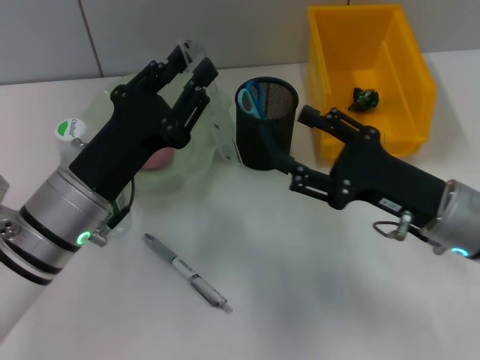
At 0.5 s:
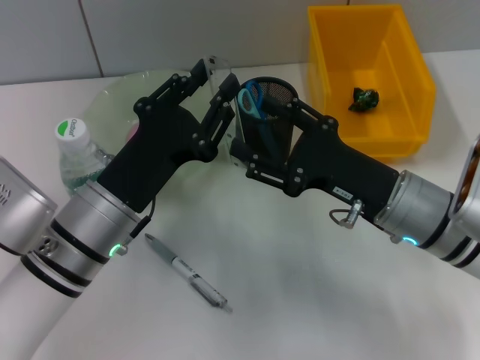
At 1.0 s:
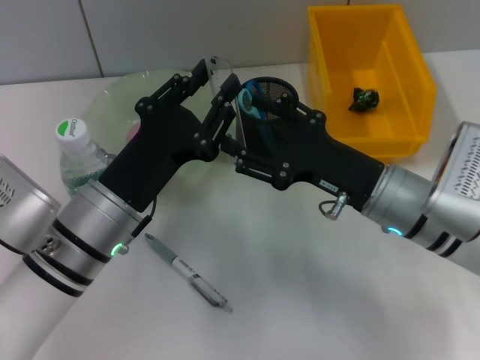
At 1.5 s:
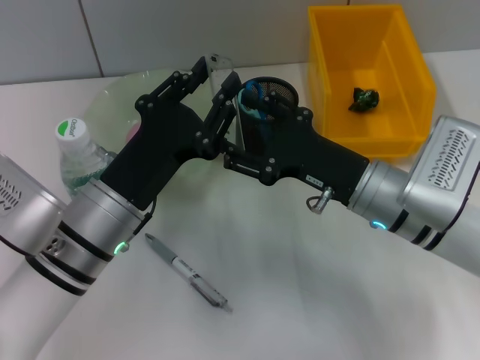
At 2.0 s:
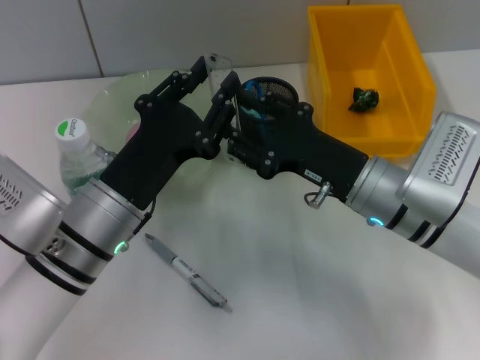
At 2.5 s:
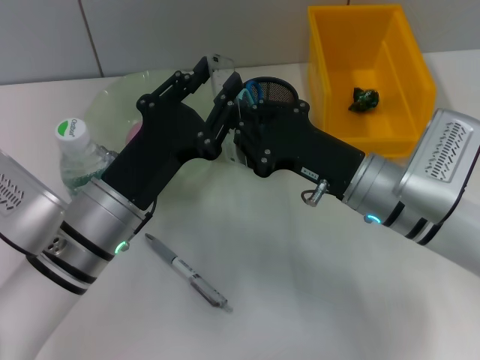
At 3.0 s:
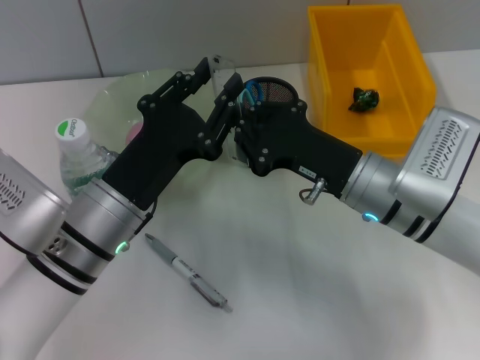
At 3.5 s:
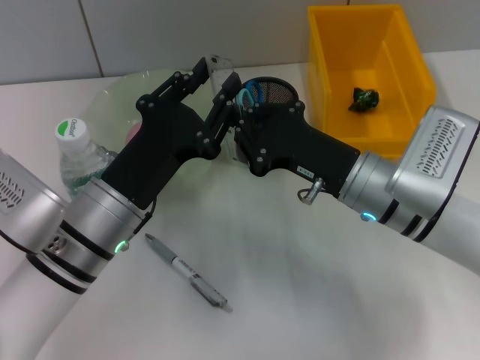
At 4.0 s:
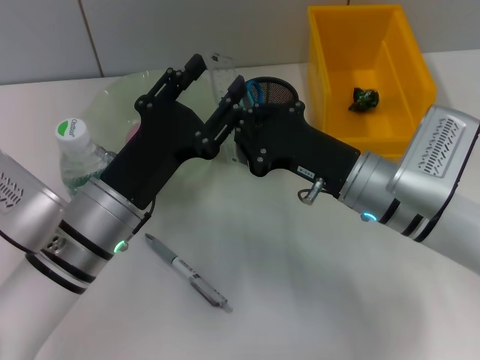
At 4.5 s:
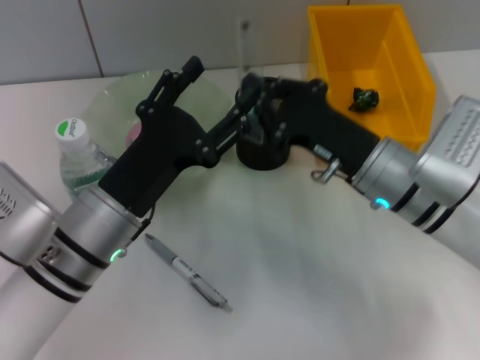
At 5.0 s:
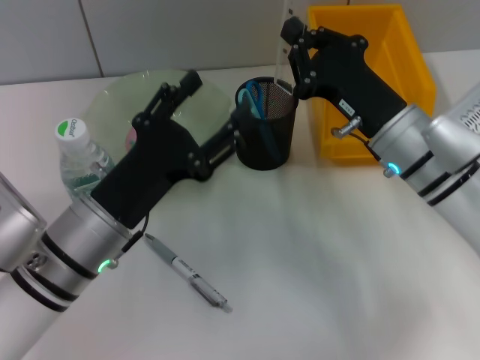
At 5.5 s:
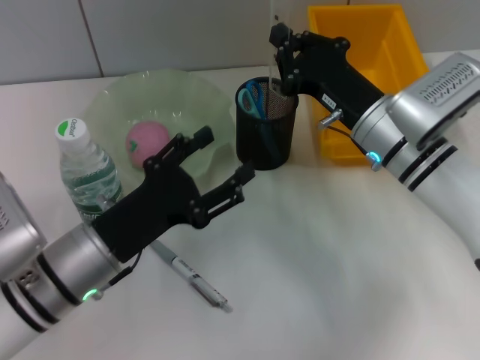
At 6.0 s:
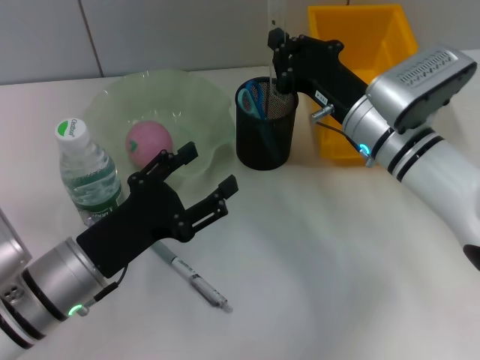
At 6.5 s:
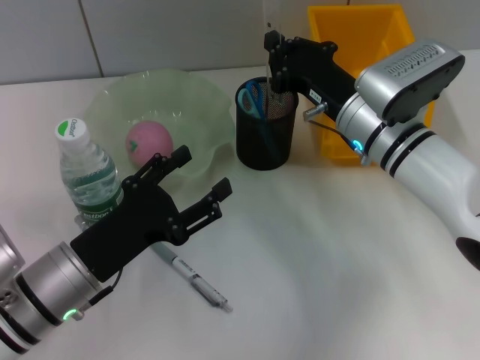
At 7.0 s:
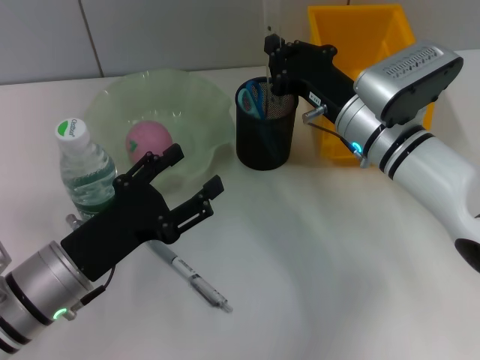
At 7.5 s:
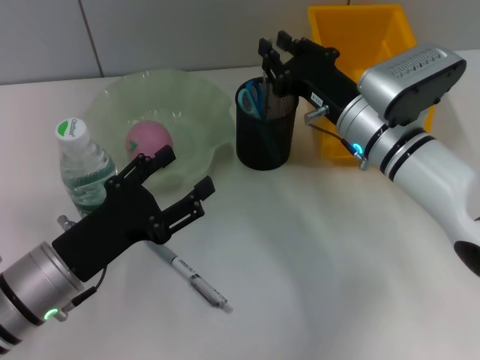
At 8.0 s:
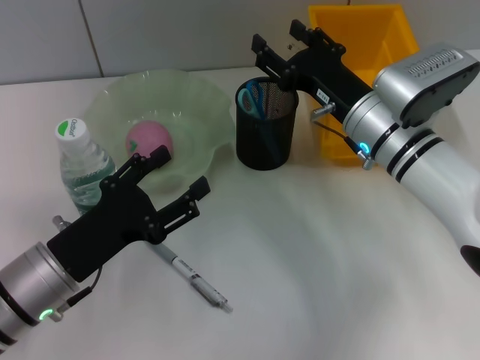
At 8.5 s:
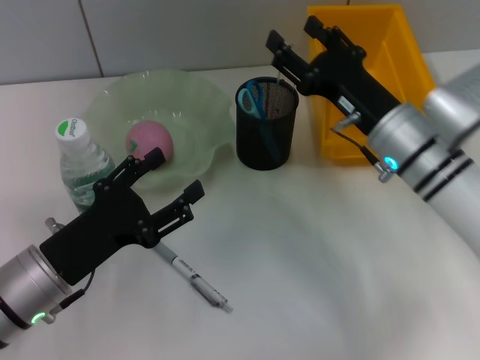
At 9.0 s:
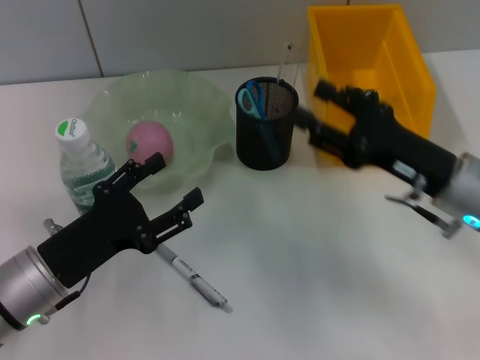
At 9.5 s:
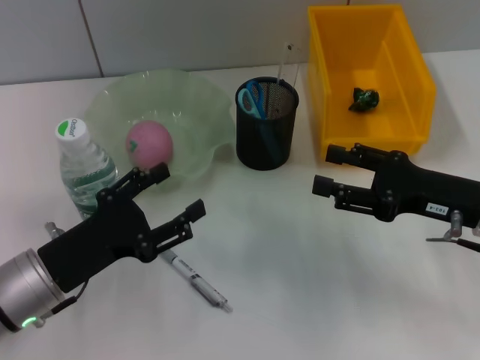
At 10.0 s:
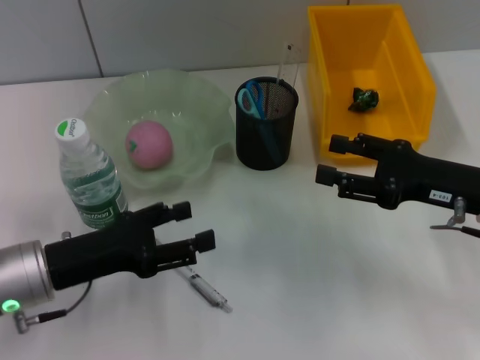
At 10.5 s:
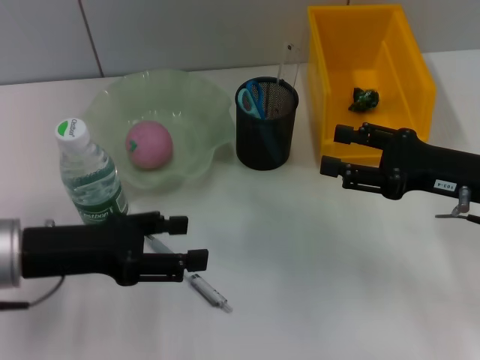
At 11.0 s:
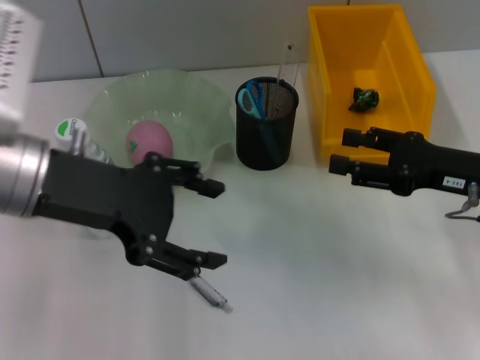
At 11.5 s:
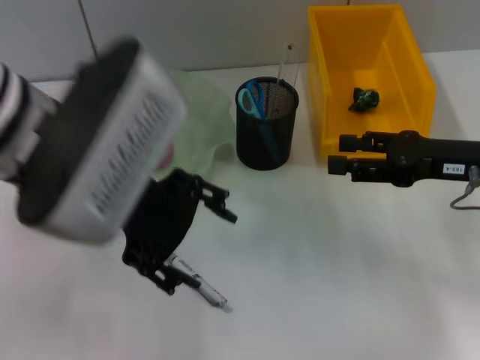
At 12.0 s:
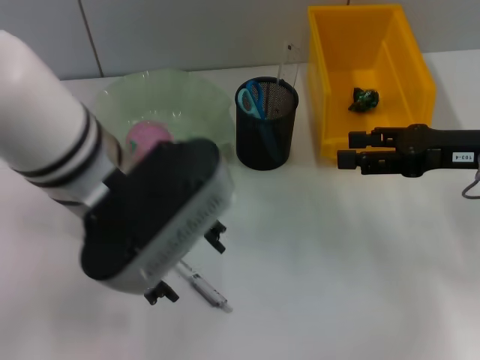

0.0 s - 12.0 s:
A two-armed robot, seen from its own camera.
Step, 0.0 s - 3.5 s: Pass the ruler from the left hand to the right hand.
Step, 4.0 s - 7.5 s: Place the ruler into the pen holder with the right hand.
0.0 s - 2.0 s: The right gripper is displaced to the left by approximately 5 cm.
2.0 s - 4.0 s: The right gripper closes up.
4.0 s - 6.0 s: The right gripper heads forward, covering some 5 cm, while the left gripper ends up some 5 cm from where it was, and opens.
6.0 s - 8.0 s: The right gripper opens.
8.0 s - 10.0 s: The right gripper shifts approximately 15 cm to the right and backward.
10.0 s - 12.0 s: The right gripper ends up roughly 5 cm from where it was; the left gripper goes some 20 cm upward and to the right.

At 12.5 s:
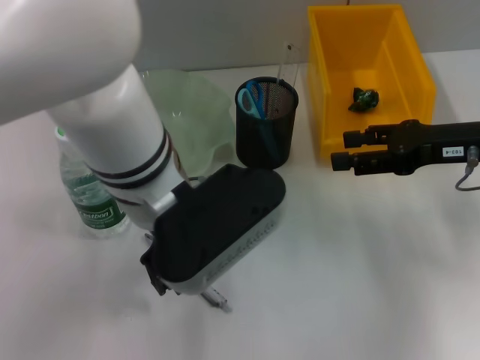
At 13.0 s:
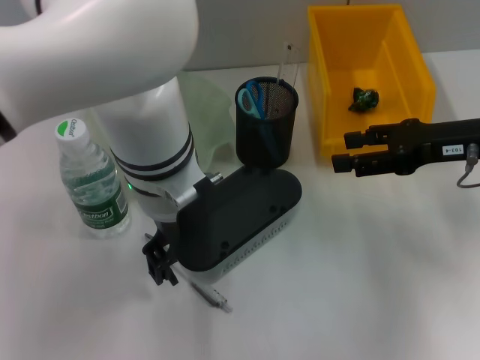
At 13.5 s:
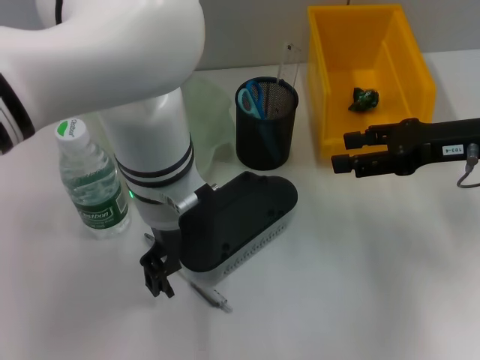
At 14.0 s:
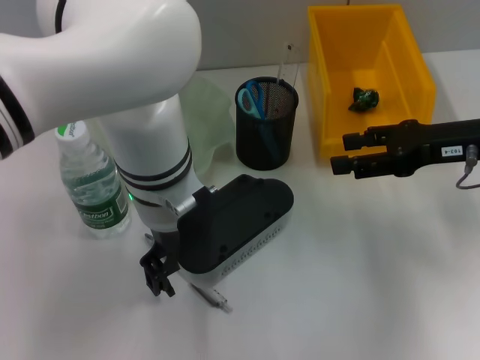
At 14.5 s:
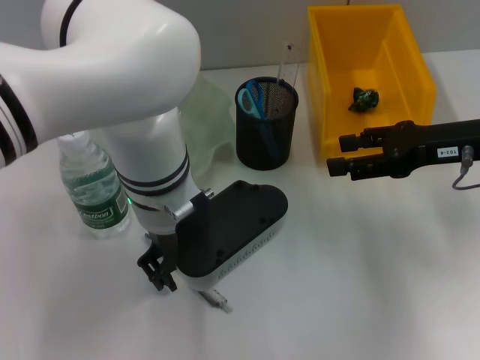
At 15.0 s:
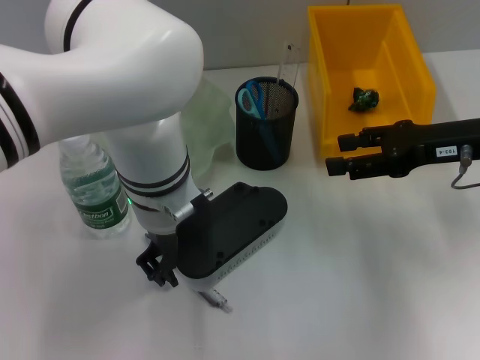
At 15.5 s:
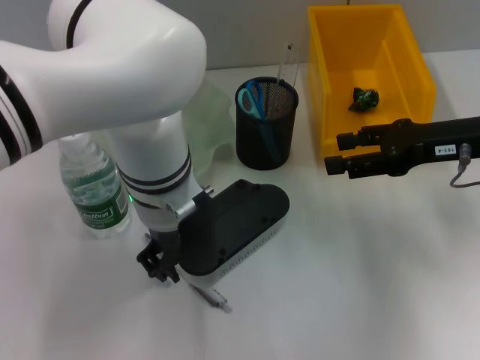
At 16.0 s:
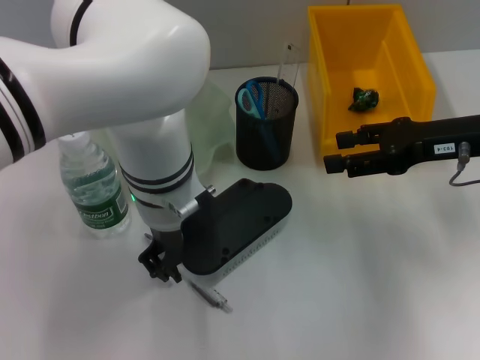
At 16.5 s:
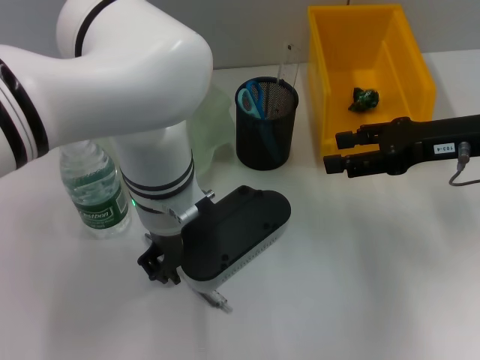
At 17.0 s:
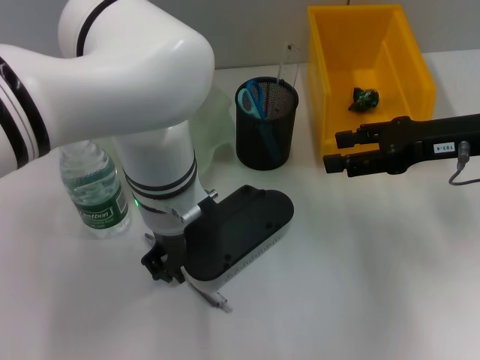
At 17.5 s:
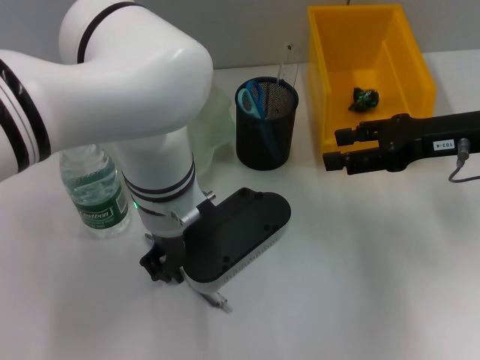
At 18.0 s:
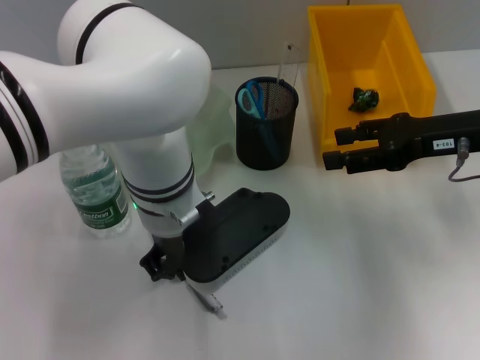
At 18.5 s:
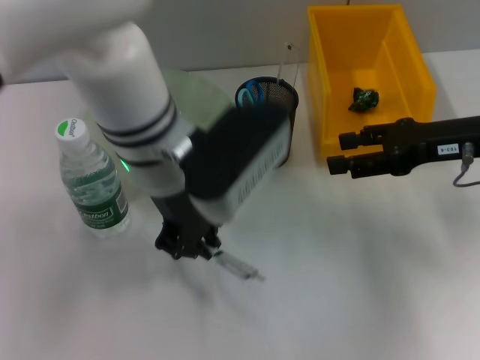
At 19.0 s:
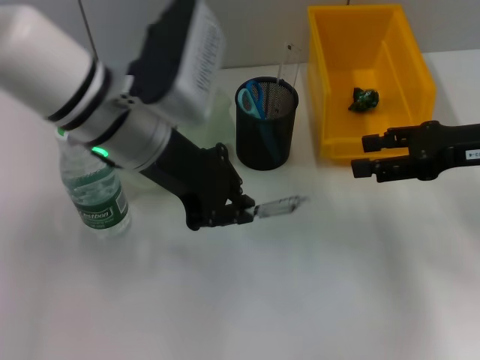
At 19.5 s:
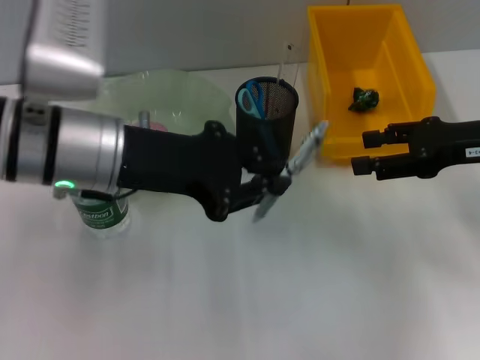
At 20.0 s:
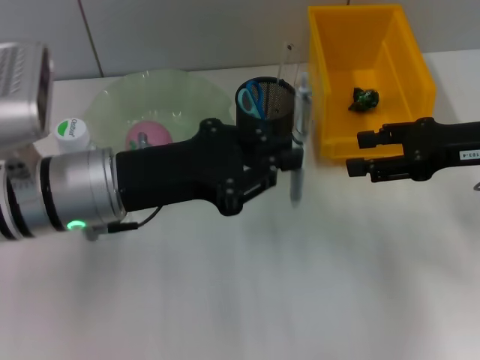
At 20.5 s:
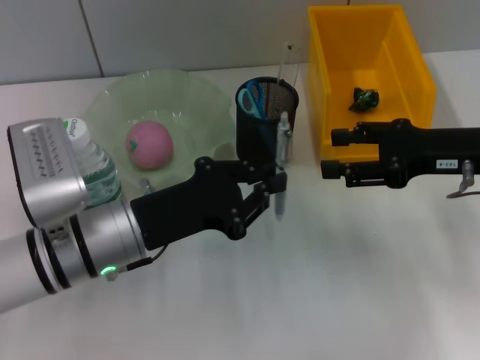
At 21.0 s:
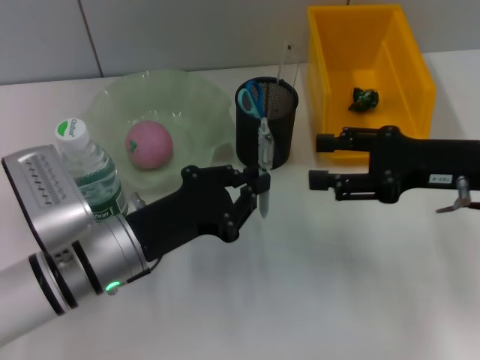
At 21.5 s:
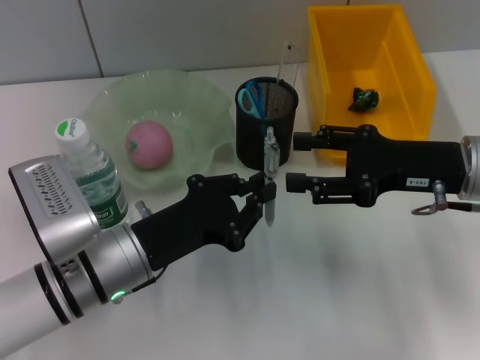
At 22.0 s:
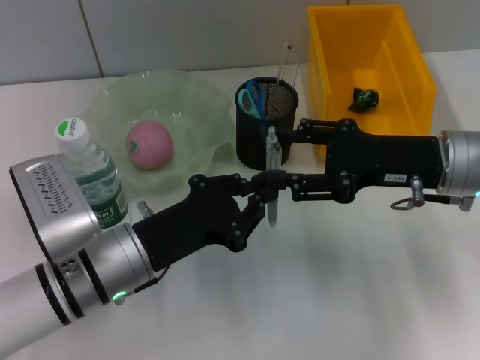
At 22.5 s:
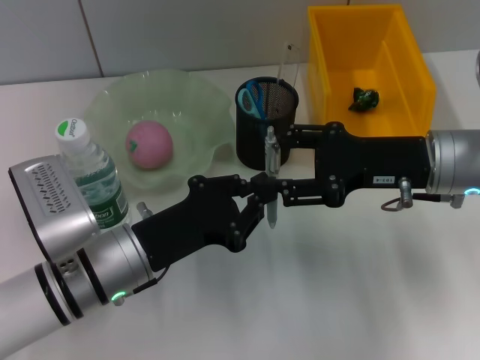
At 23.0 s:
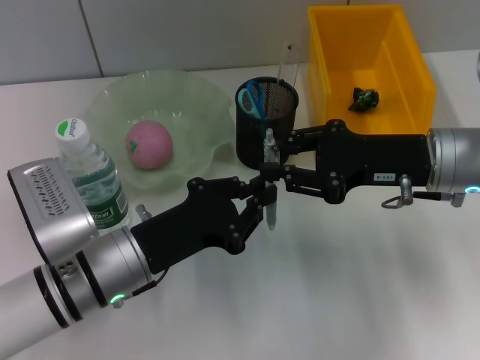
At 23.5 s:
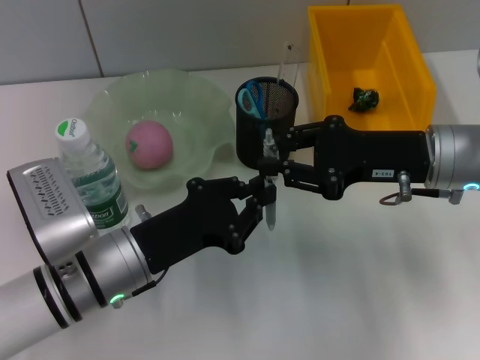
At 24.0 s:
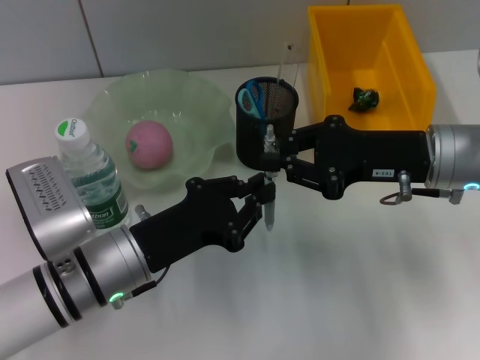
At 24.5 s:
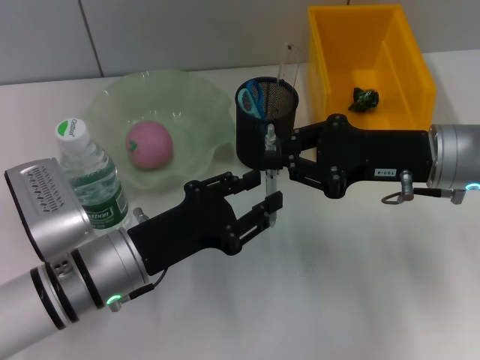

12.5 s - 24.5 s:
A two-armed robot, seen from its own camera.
Step, 12.5 s - 17.5 s: Grab the gray spring-action pen with the left hand.
14.5 s - 16.5 s: The two grippers keep their place.
18.5 s - 20.5 s: The left gripper goes about 15 cm downward, to the left and backward.
20.5 s - 22.5 s: The right gripper heads to the left, covering approximately 5 cm.
22.5 s - 24.5 s: The right gripper closes up.

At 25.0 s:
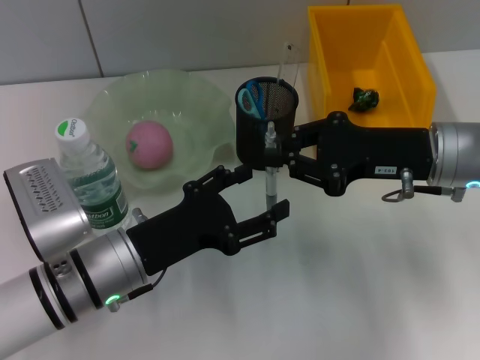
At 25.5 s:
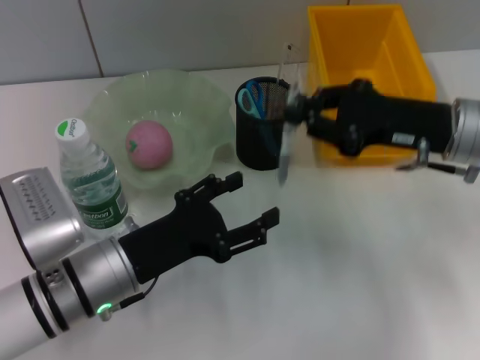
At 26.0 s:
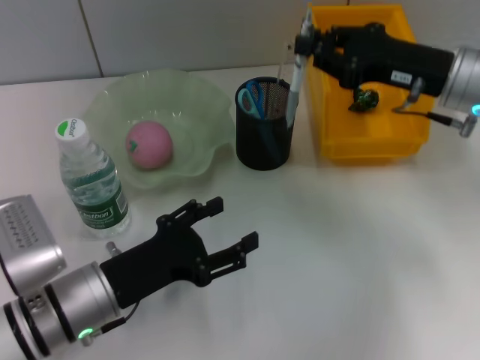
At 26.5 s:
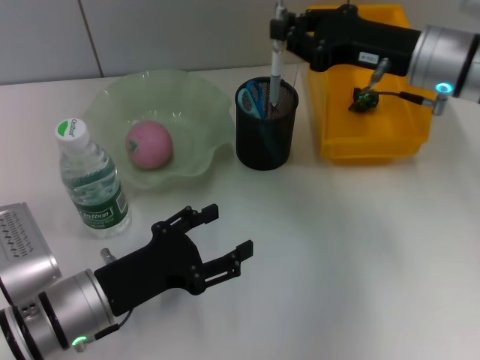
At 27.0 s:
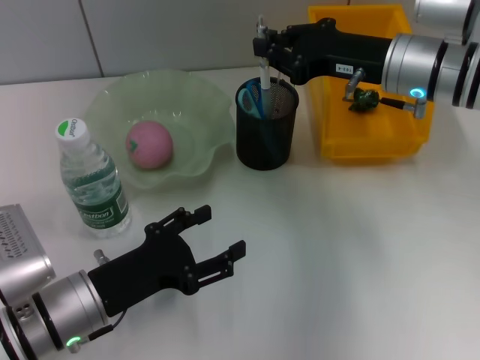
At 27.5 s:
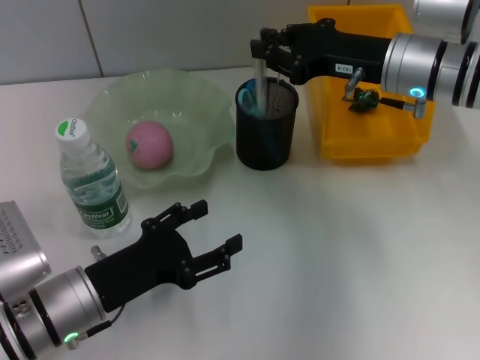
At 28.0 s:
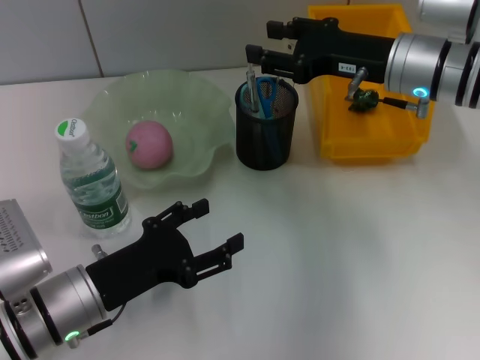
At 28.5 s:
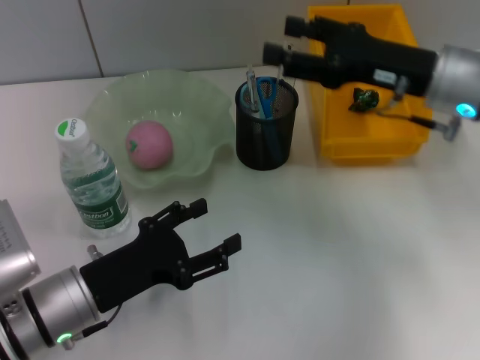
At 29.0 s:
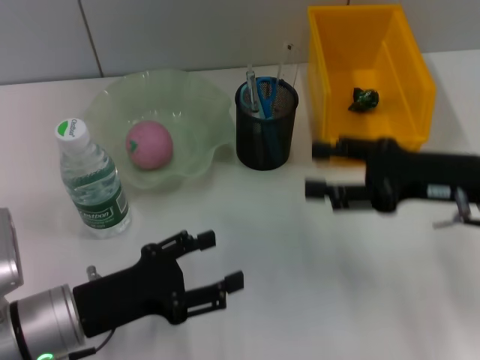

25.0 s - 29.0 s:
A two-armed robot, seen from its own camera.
Step, 25.0 s - 27.5 s: Place the gray spring-action pen into the pen holder with the right hand.
25.0 s - 27.0 s: The left gripper changes place by about 5 cm. The right gripper is displaced forward by some 10 cm.
27.0 s - 29.0 s: The right gripper moves backward and to the right, some 15 cm, and opens up.
